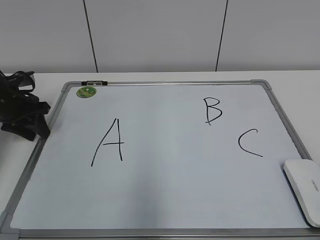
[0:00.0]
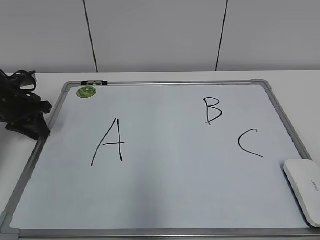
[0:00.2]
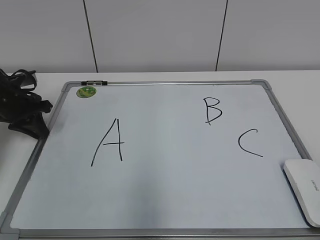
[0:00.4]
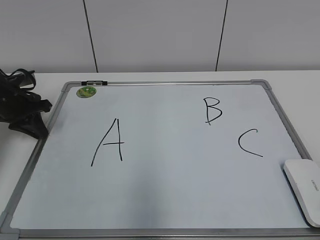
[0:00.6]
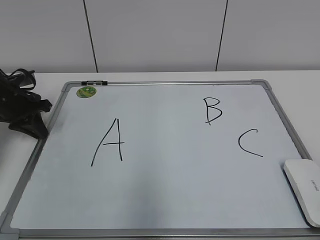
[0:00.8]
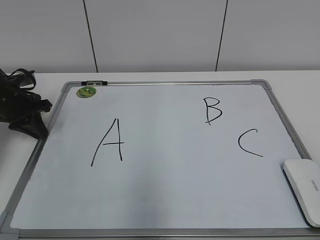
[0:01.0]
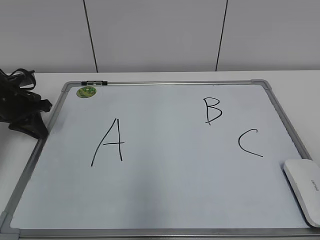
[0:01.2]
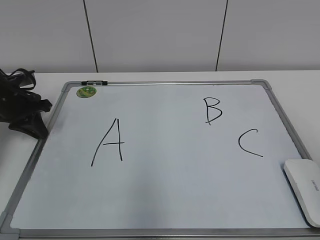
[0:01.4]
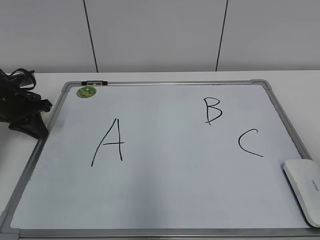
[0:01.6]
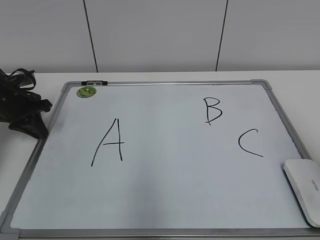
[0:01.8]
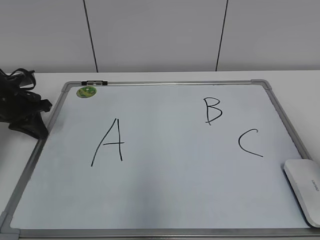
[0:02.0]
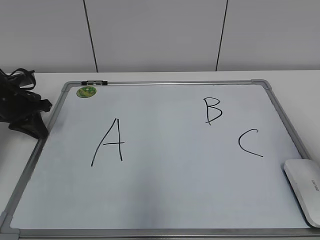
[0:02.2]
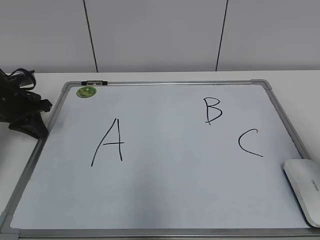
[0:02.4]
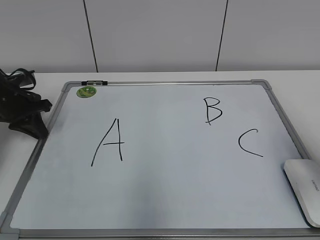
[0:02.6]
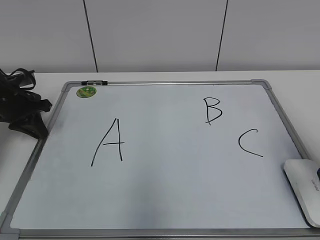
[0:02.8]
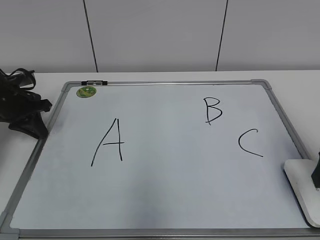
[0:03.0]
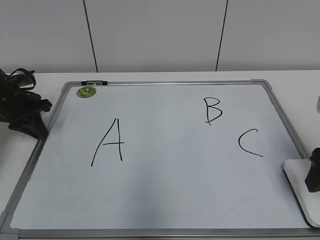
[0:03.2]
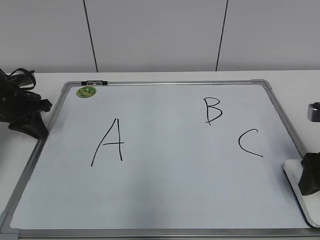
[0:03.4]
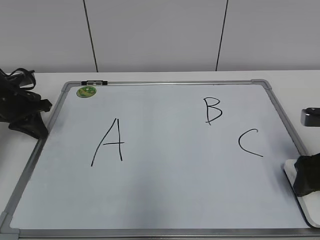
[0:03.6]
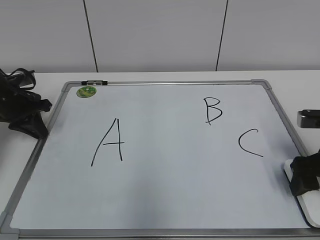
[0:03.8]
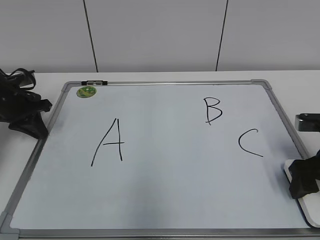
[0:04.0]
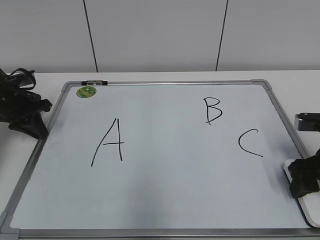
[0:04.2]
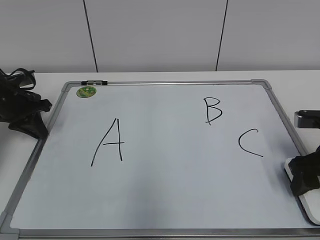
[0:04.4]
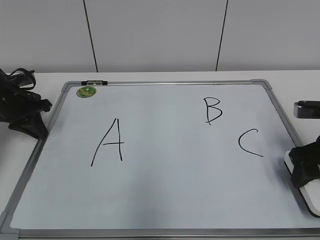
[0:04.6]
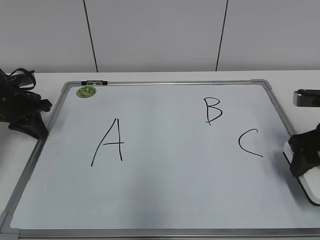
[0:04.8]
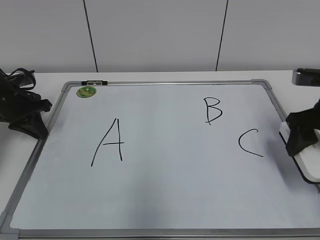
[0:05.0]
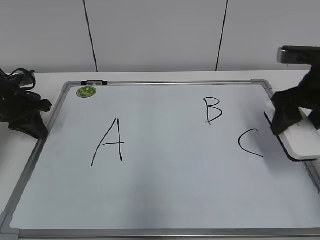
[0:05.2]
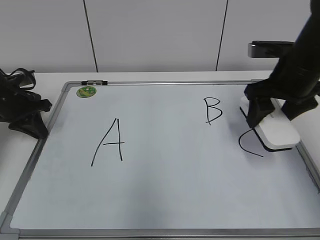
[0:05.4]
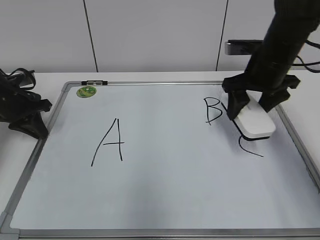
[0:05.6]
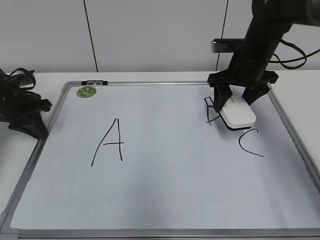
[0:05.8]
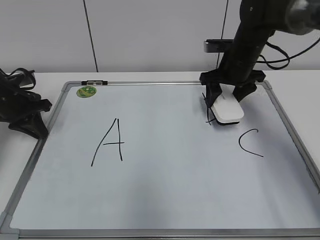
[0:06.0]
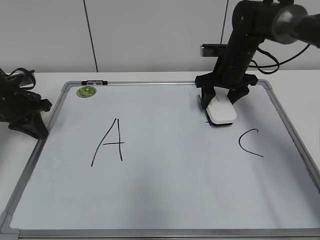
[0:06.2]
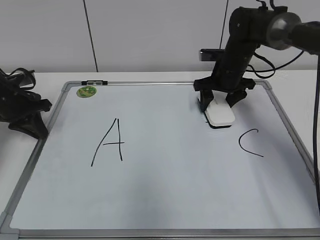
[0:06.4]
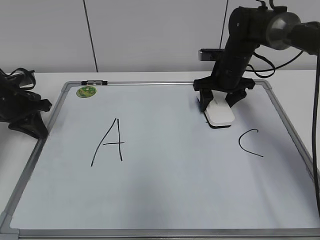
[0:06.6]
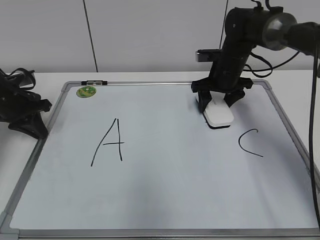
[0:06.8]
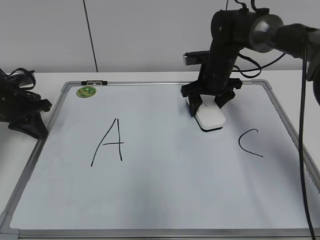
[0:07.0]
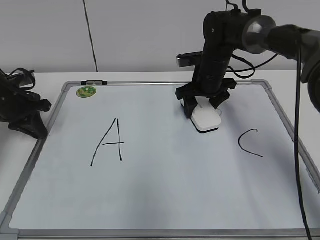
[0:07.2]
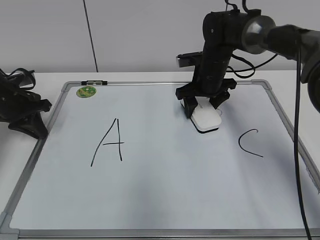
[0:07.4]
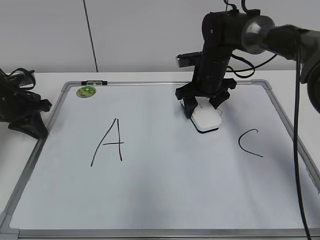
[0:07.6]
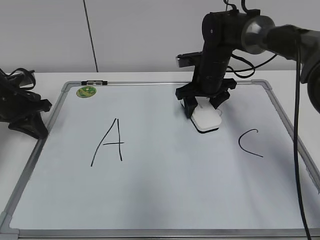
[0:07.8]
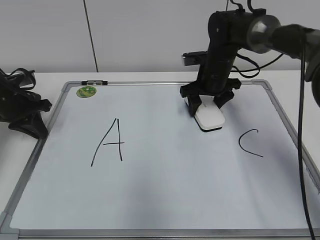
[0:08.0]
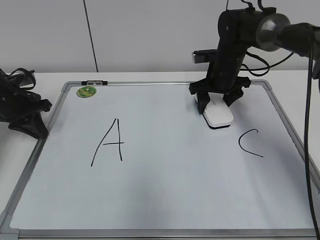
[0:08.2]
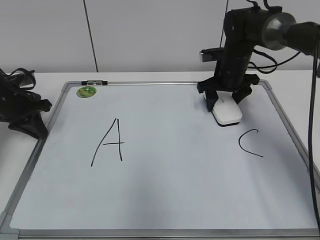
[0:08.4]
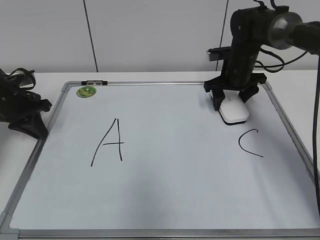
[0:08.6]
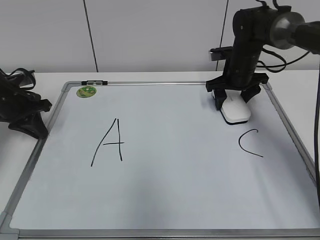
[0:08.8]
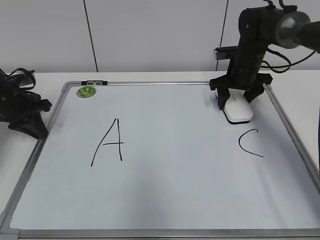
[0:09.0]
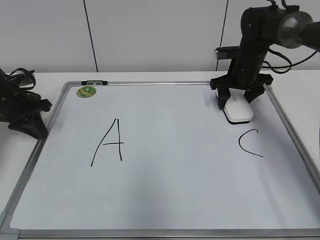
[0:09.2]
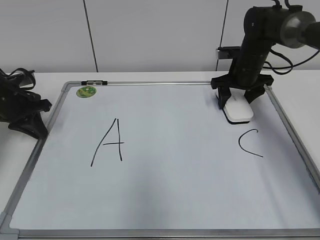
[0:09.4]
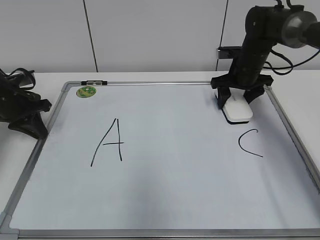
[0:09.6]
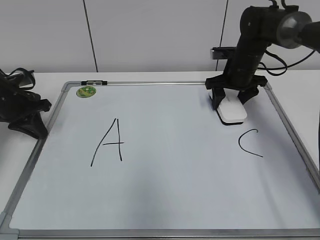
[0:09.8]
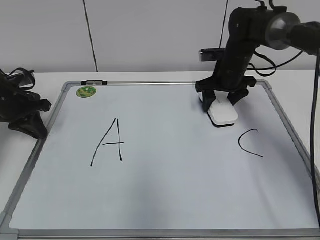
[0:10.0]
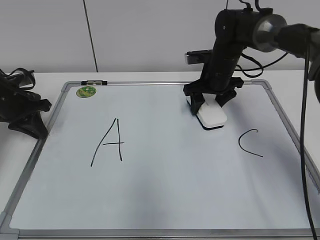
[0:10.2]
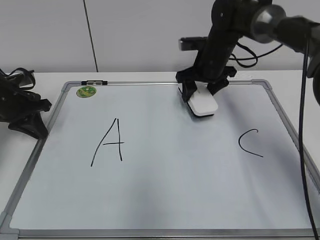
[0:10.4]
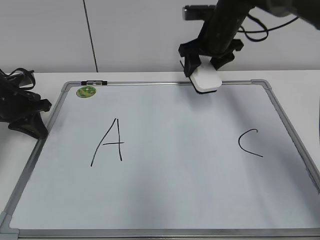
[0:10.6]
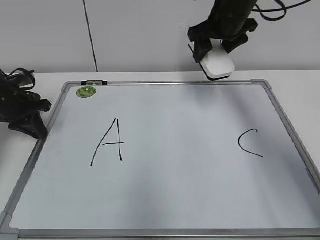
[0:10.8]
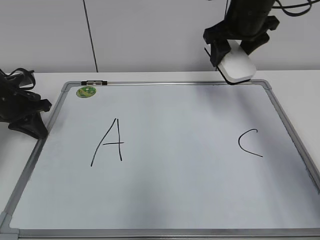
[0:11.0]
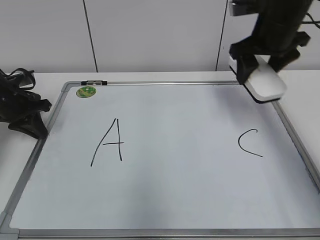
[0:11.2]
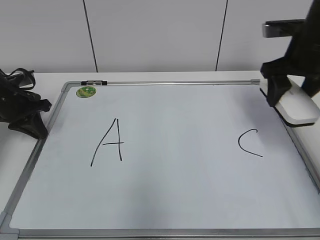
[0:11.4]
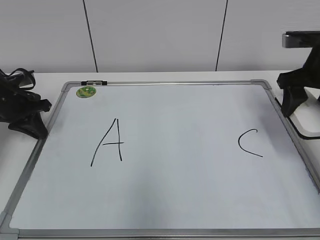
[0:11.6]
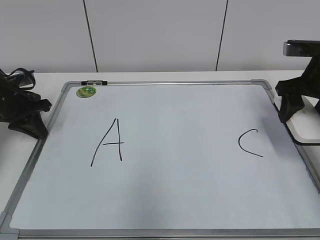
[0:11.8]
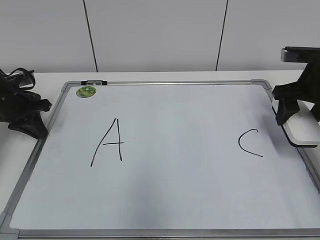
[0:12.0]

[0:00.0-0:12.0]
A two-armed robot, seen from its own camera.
Task of the whole recording: pick up the eraser on the blackboard and erase the letter "B".
Step, 0:04.4 to 0:10.0: Erase the letter B with your right hand.
0:00.0 to 0:01.6: The left gripper closes up.
0:01.6 to 0:03.0: The right gripper heads forward and downward, covering some 15 cm, and opens up.
0:03.0 to 0:04.4: The right gripper shifts some 5 cm downward, and closes its fingers.
0:04.4 to 0:06.0: The right gripper is displaced forward and to the left by approximately 25 cm.
0:06.0 to 0:07.6: The right gripper is displaced to the left by approximately 5 cm.
0:07.6 to 0:09.0: The right gripper moves to the right, approximately 10 cm.
0:09.0 to 0:10.4: The right gripper is displaced to the left by approximately 10 cm.
0:10.4 to 0:12.0: The right gripper travels to the right and backward by approximately 20 cm.

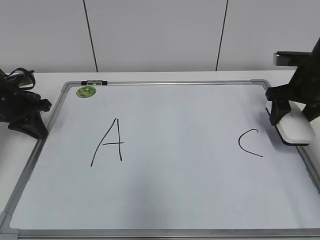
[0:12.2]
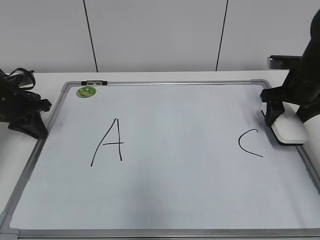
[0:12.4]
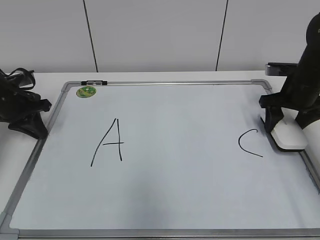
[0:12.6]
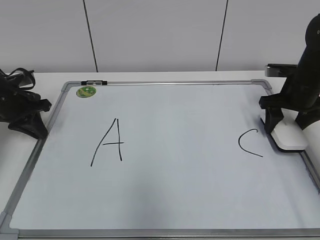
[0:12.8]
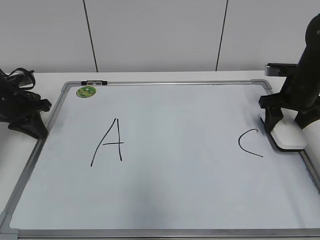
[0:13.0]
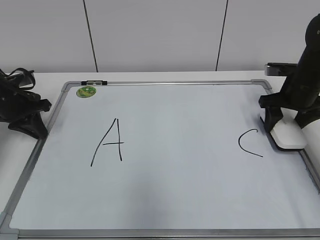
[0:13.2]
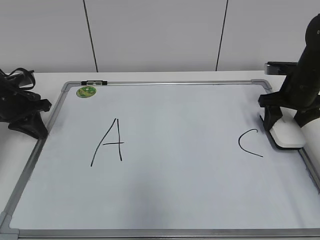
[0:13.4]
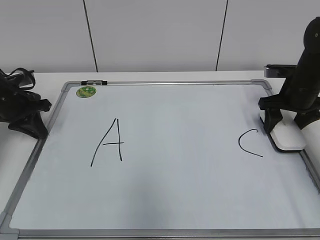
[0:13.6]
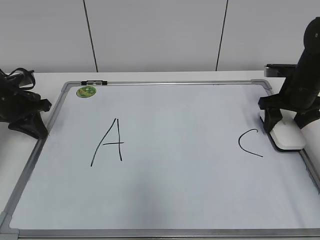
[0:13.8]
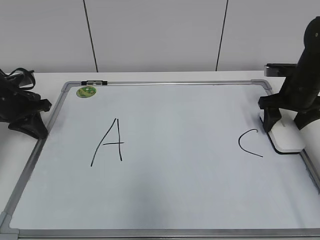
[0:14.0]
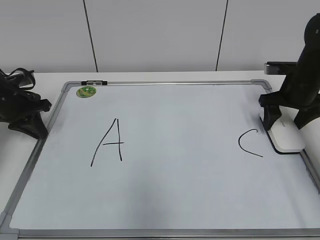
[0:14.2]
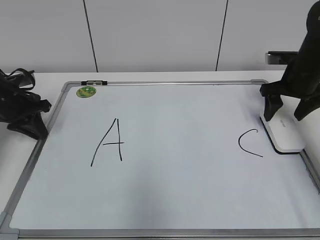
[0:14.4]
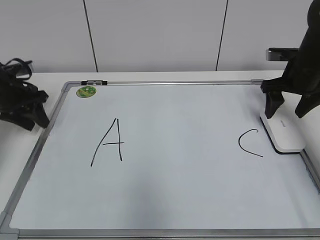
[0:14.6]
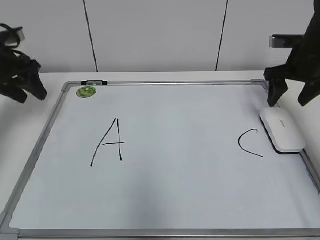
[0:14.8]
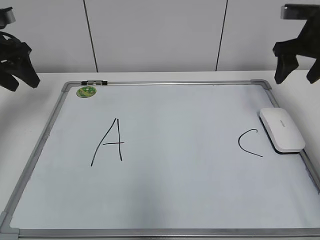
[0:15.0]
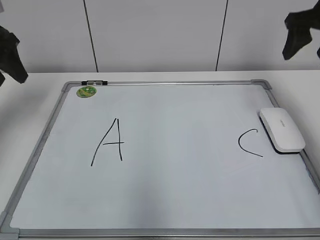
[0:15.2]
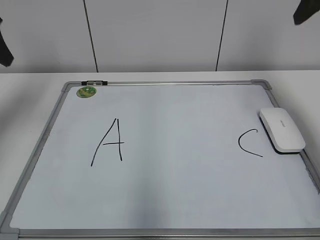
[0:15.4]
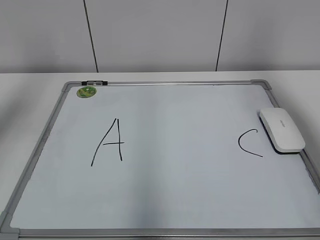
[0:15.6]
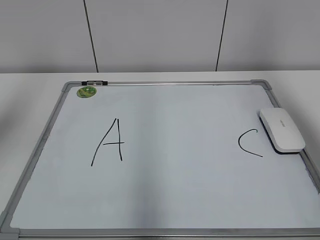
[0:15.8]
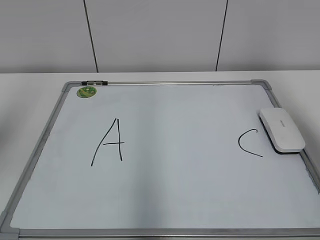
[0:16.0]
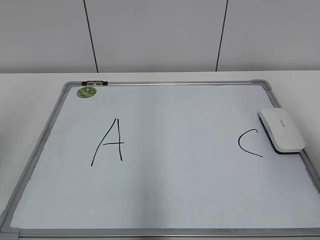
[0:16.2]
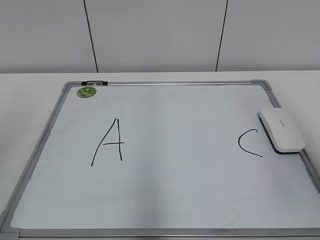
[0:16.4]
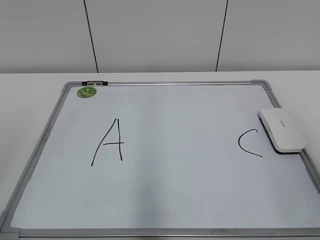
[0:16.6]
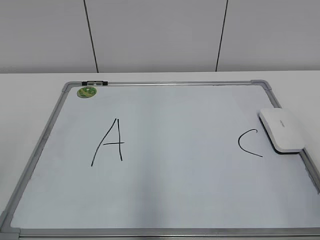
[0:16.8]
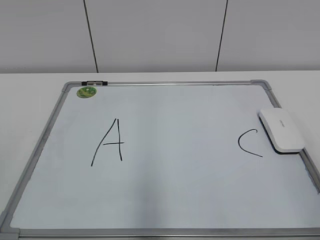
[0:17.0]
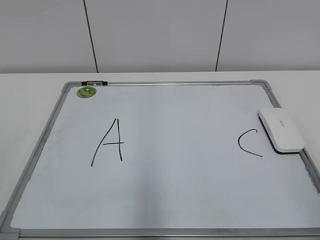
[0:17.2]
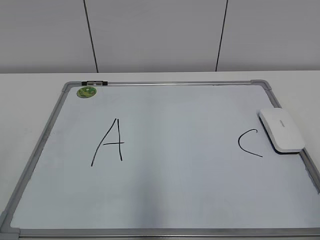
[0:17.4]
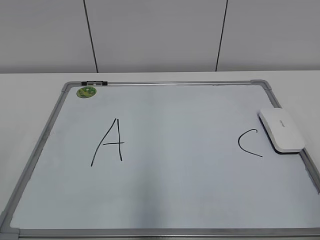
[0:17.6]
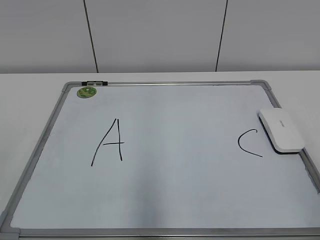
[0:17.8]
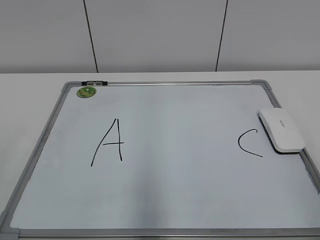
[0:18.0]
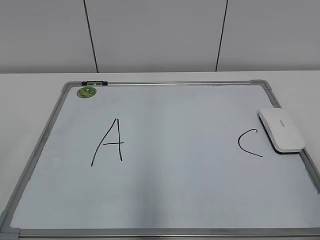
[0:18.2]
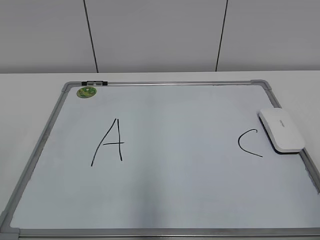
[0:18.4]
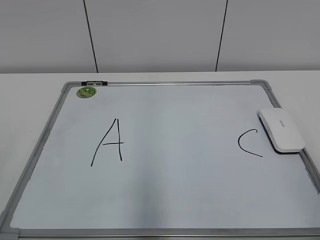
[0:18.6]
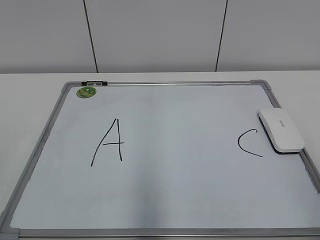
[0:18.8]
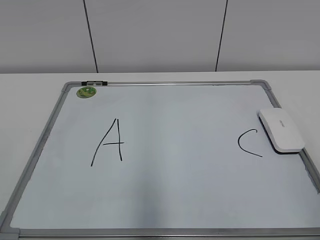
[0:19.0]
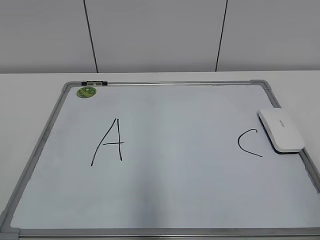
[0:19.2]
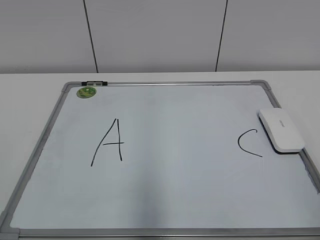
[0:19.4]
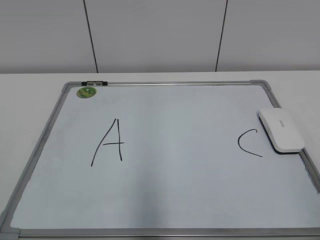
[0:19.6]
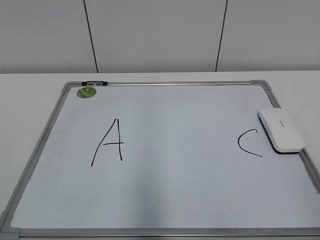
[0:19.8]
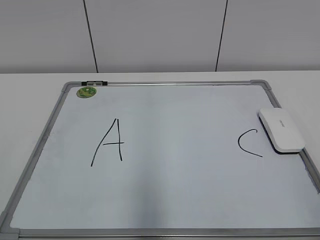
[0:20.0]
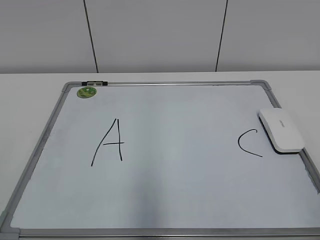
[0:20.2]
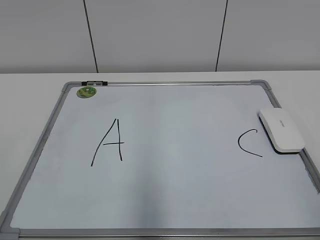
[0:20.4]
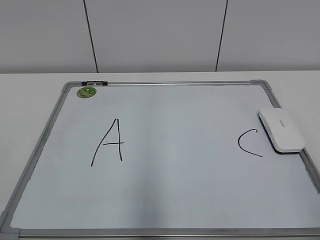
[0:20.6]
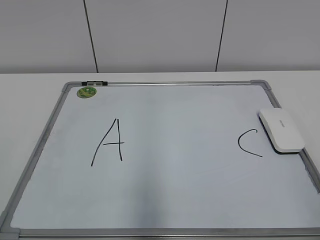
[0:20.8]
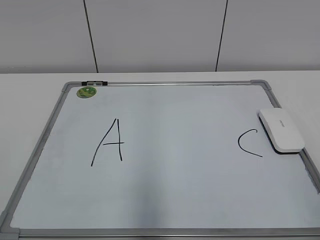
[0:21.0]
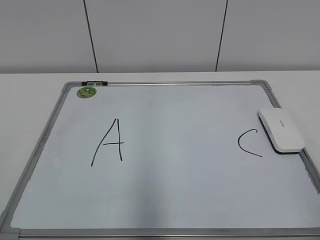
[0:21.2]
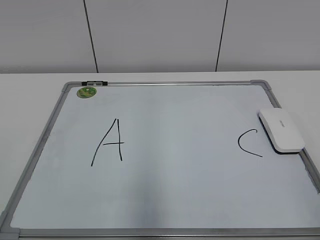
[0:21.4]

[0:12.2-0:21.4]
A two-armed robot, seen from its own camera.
Task of the whole recording: pick up the eraser on the blackboard and erase the letter "B".
0:12.2 to 0:13.8: The grippers move only a little.
0:13.8 to 0:15.2: Both grippers move upward, approximately 15 cm. The right gripper opens its fingers. Meanwhile the left gripper opens.
0:15.2 to 0:16.8: The grippers both shift backward by roughly 35 cm.
0:19.8 to 0:21.4: Neither gripper changes place.
